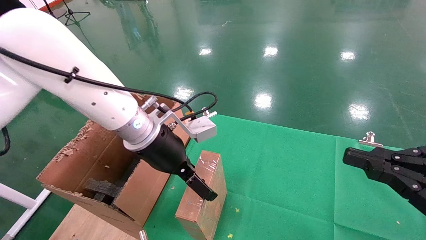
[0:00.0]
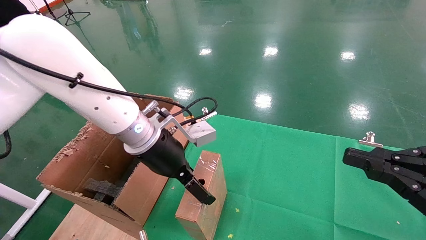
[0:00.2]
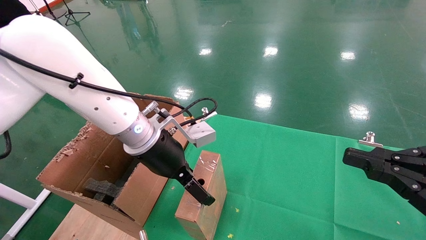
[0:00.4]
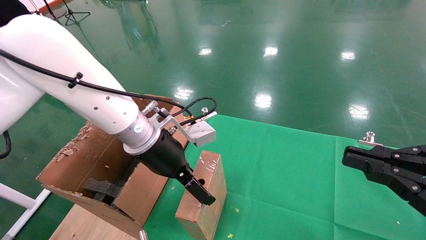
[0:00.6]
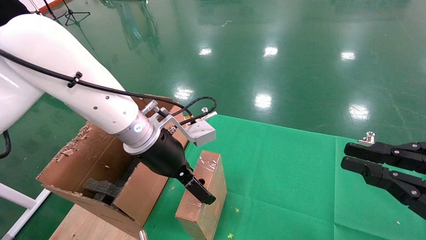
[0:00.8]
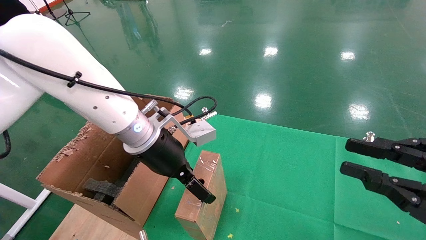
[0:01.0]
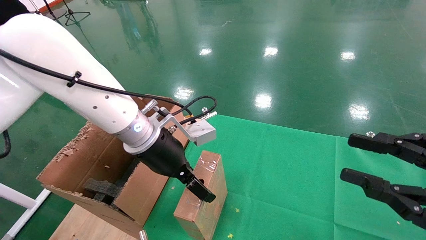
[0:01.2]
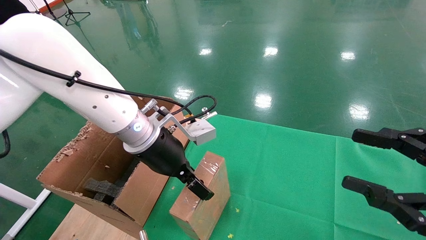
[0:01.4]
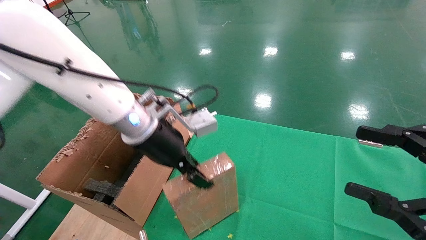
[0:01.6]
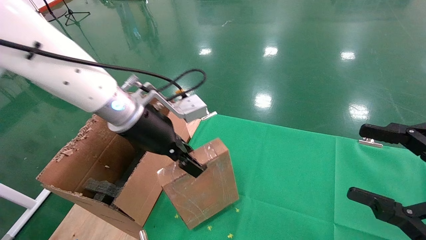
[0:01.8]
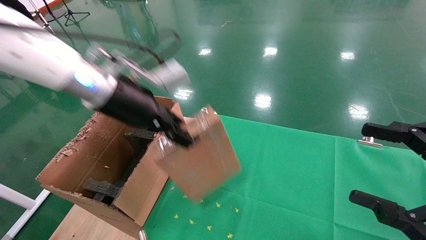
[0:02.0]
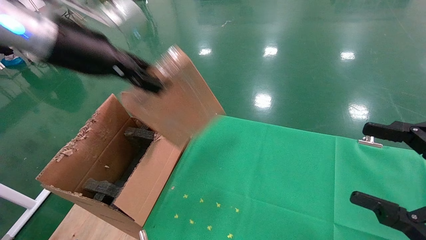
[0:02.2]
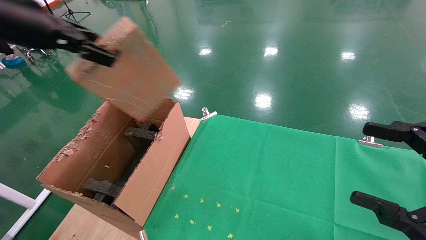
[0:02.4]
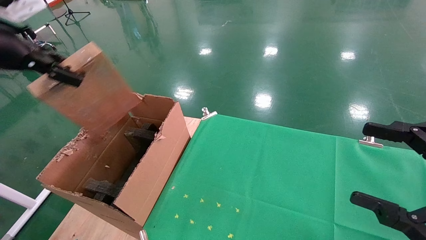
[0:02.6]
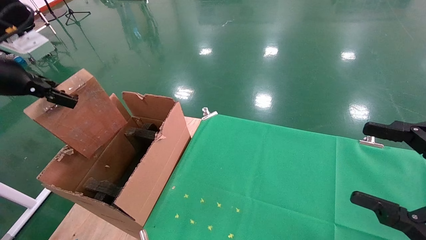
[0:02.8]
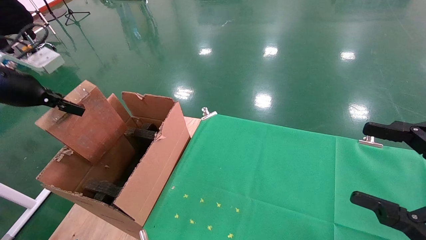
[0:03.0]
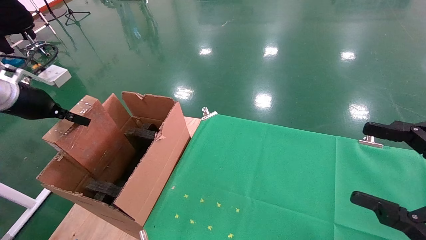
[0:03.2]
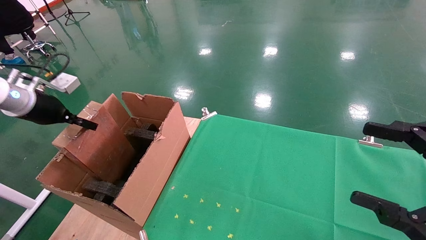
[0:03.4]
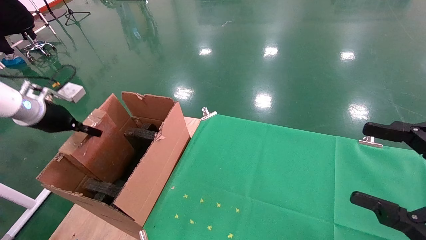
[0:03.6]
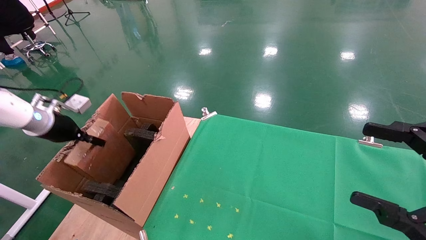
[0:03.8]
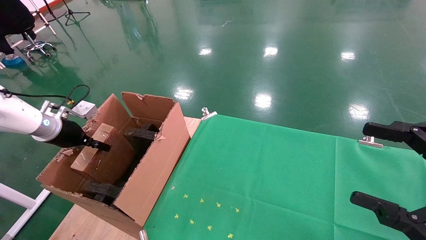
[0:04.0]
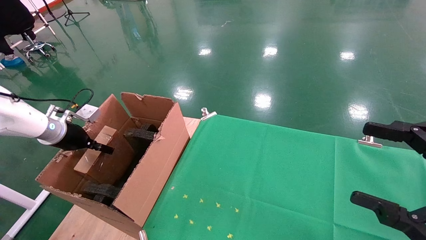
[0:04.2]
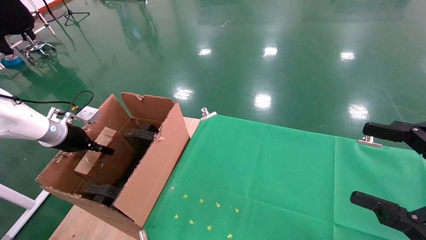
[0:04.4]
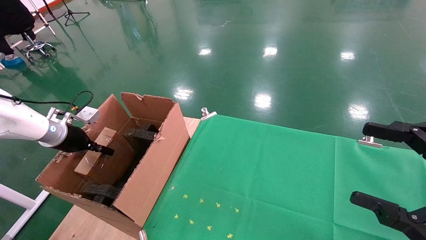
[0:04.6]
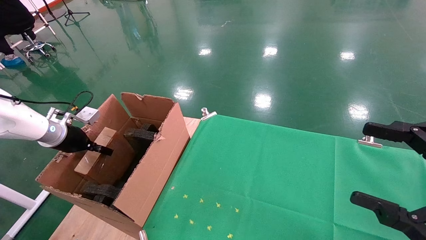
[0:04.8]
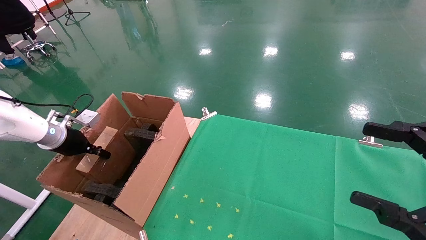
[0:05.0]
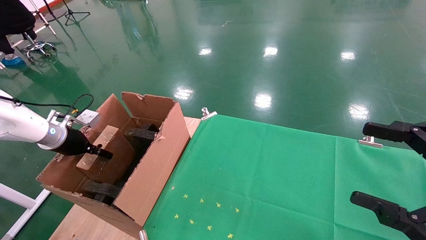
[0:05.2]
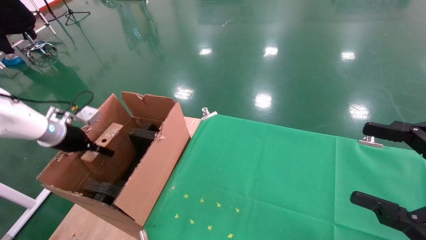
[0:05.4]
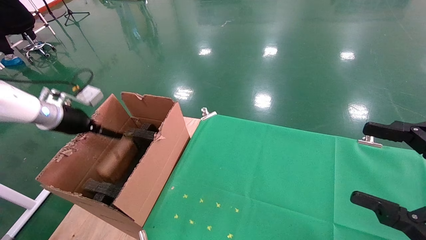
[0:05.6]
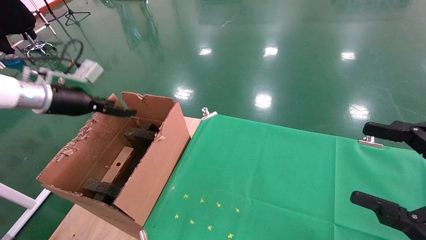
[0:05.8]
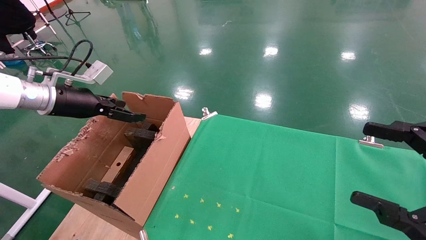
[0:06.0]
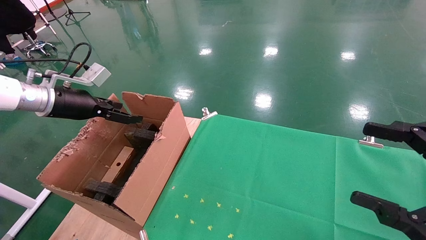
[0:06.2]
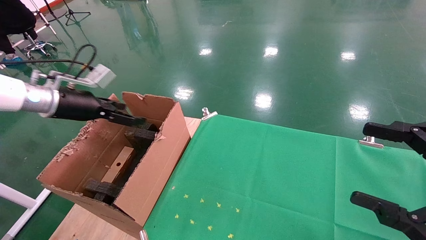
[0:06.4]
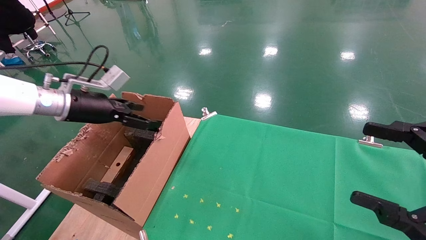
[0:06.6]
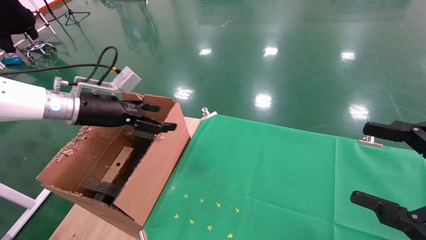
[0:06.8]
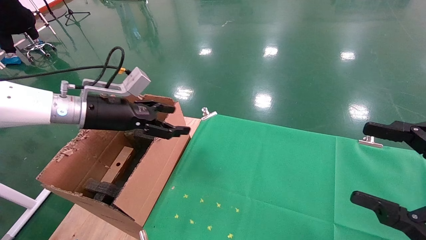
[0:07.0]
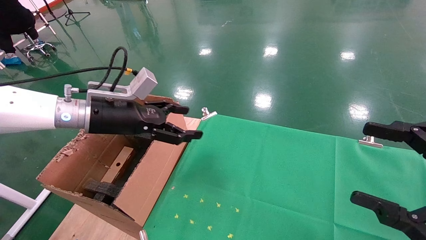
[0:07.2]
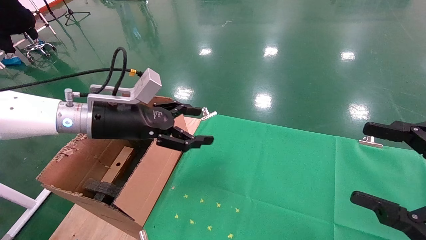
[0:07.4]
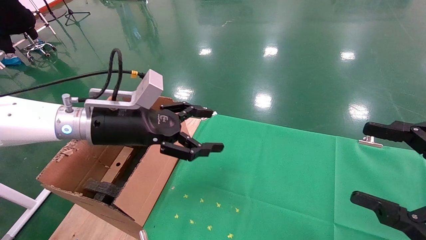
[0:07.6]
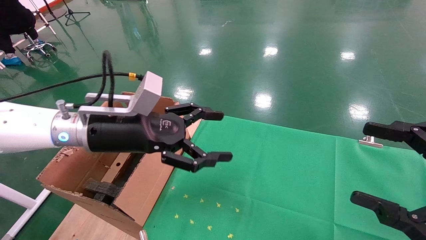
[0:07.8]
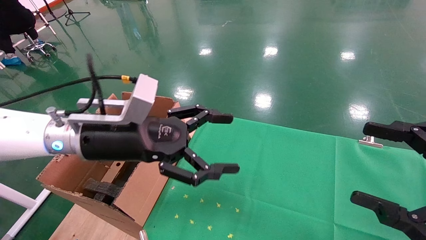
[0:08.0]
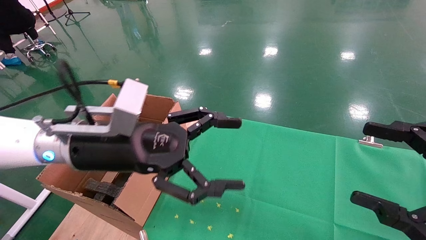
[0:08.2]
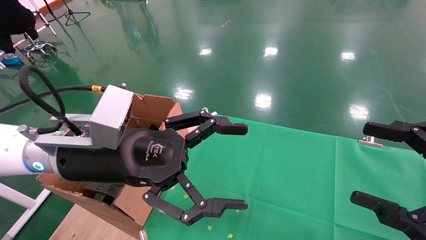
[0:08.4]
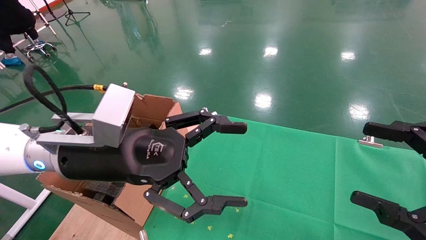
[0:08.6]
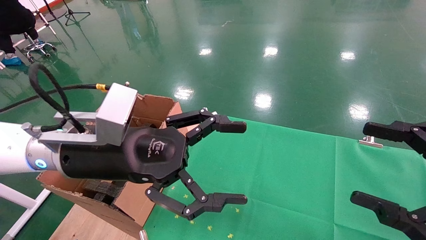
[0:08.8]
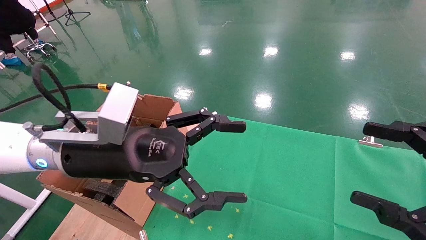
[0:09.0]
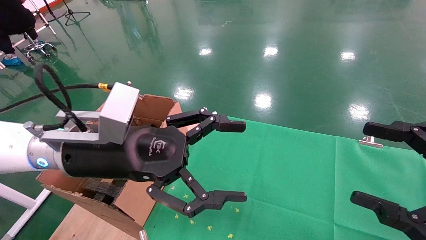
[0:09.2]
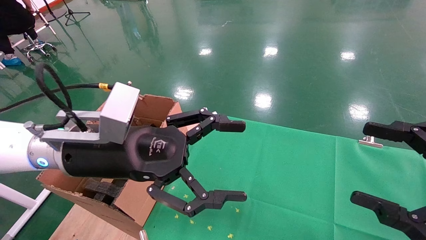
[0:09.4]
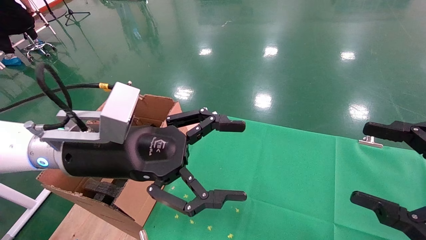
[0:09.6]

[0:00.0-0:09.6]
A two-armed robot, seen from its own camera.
Task of the whole recording: using a robotic arm to pick up a cardboard box and palace it the carton.
Step, 1.8 to 5.4 s: Place the mouse and the power cord paper box into the container.
0.0 to 1.6 s: The right gripper opens. The left gripper closes up.
1.6 to 3.2 s: The left gripper moves to the left, some 30 cm.
3.2 to 4.8 s: The left gripper moves downward and forward, roughly 15 cm.
4.8 to 6.4 s: The left gripper goes some 15 cm upward and to the right, and opens up.
6.4 to 8.0 s: The left gripper travels to the right and backward by approximately 20 cm.
8.0 to 9.6 s: The grippers stay close to where they were, moving slightly.

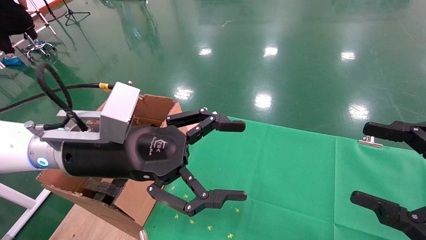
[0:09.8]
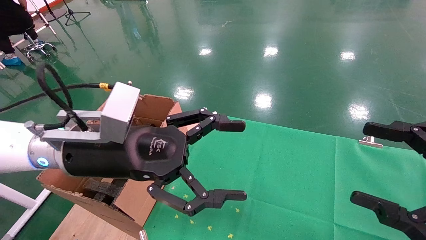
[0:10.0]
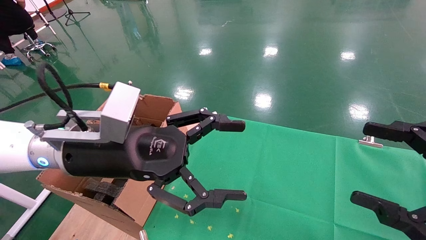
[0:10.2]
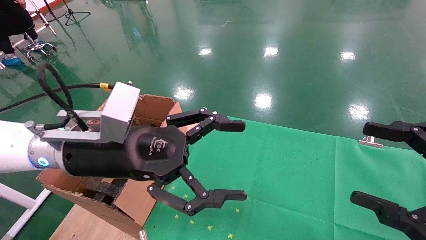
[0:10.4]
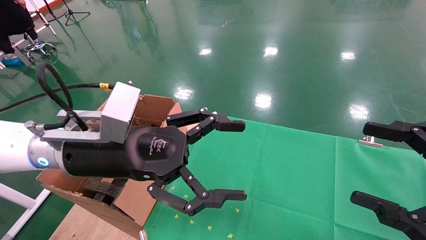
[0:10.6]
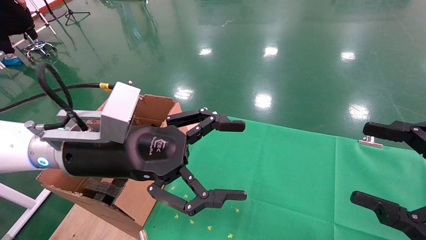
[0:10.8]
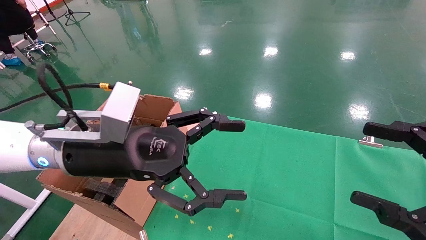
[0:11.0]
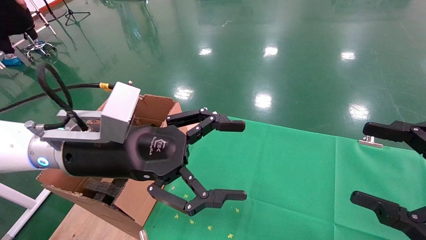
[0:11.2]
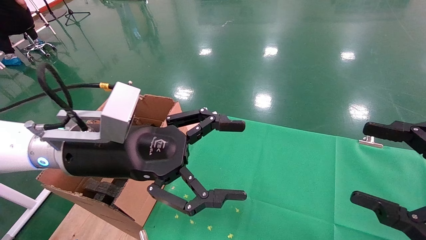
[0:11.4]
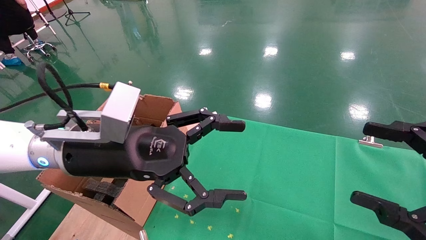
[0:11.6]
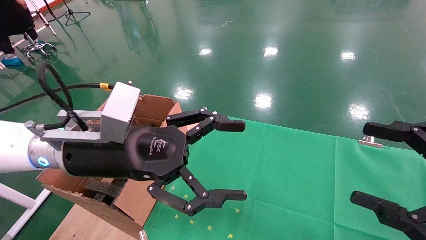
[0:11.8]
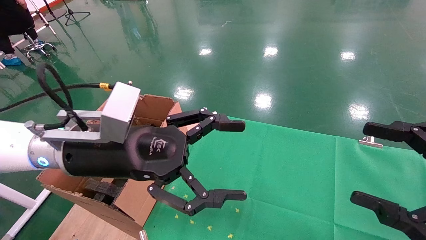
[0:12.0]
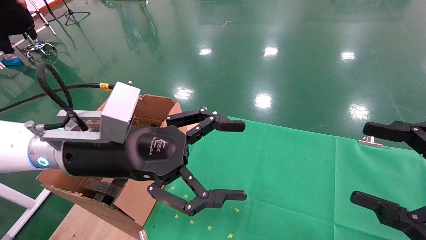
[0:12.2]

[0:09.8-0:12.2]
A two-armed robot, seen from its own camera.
Task of the whole recording: using a robotic arm to pick up a cardboard box and palace it the carton.
9.8 to 12.2 s: Both grippers stay about where they are.

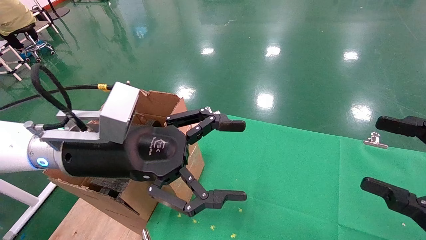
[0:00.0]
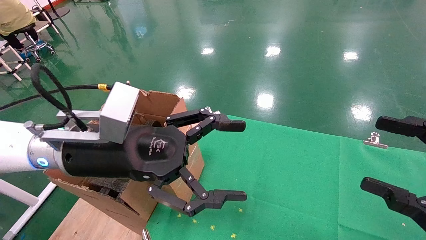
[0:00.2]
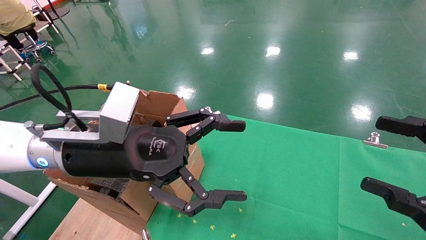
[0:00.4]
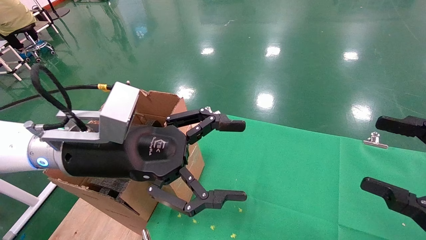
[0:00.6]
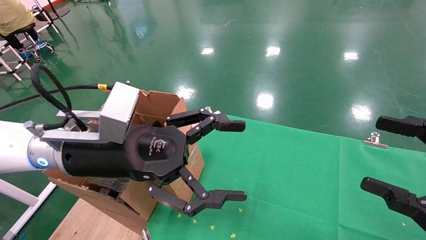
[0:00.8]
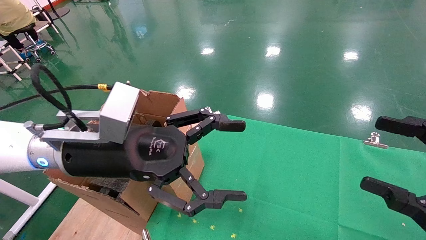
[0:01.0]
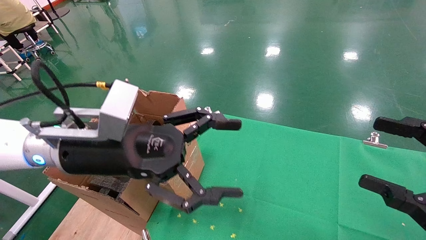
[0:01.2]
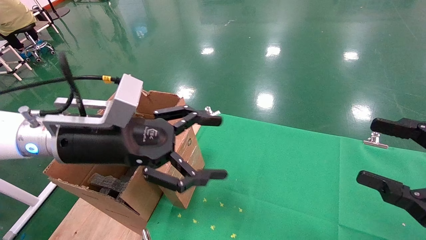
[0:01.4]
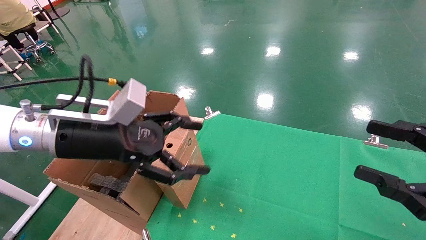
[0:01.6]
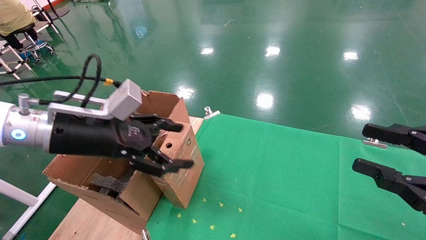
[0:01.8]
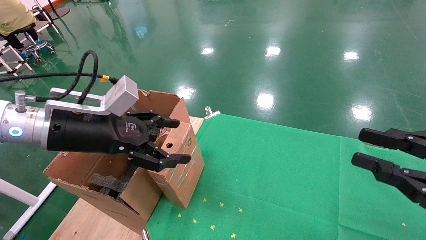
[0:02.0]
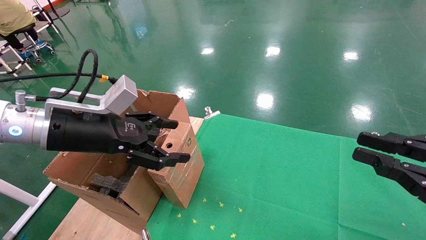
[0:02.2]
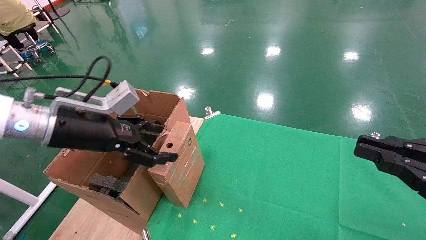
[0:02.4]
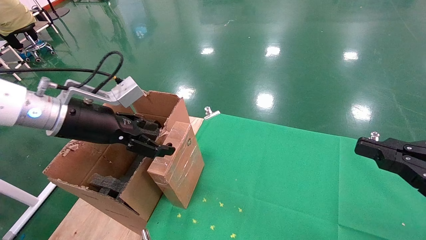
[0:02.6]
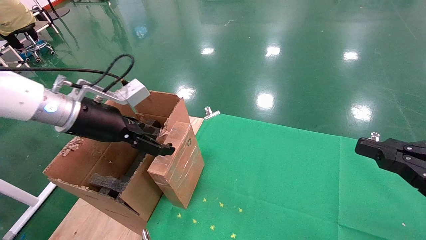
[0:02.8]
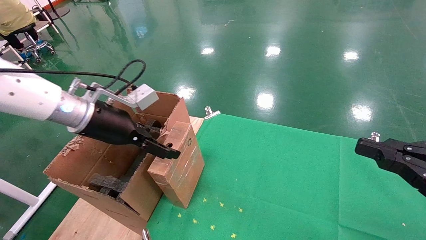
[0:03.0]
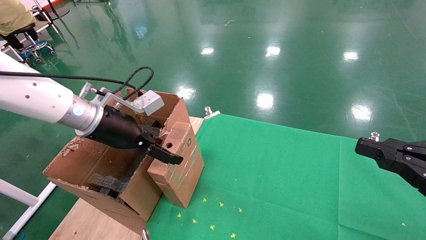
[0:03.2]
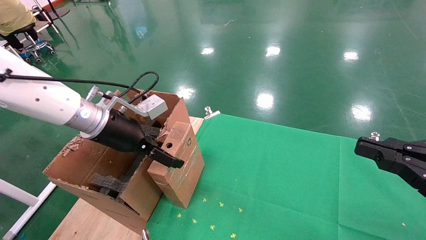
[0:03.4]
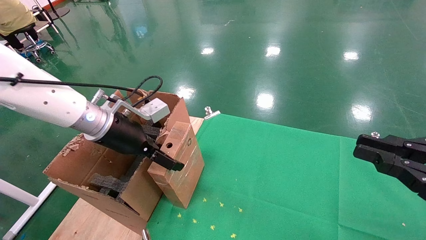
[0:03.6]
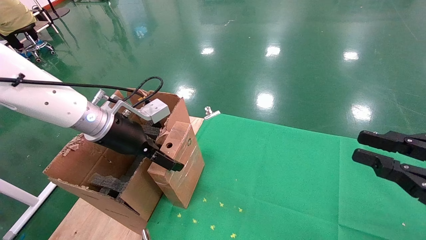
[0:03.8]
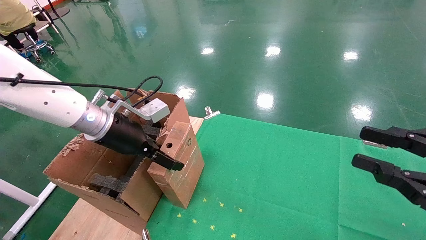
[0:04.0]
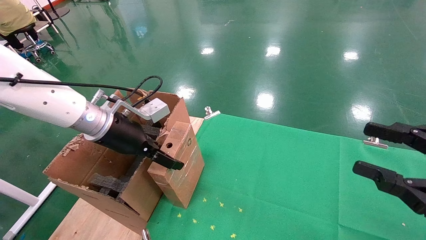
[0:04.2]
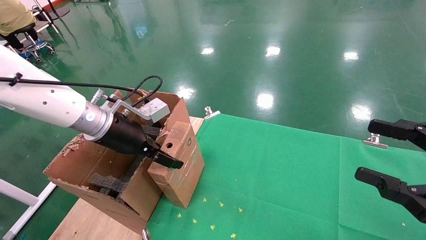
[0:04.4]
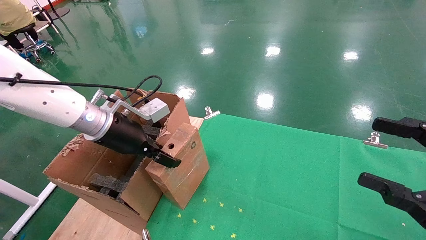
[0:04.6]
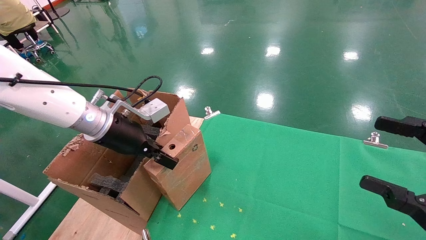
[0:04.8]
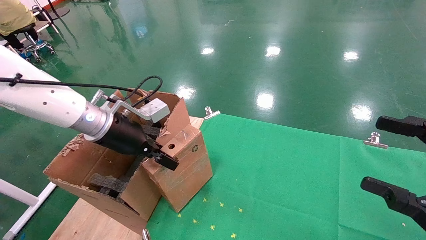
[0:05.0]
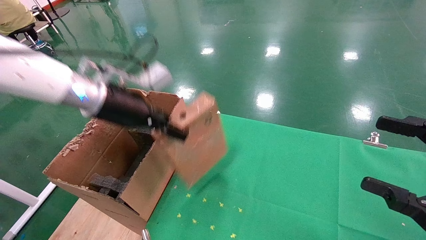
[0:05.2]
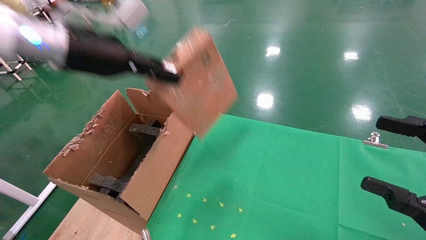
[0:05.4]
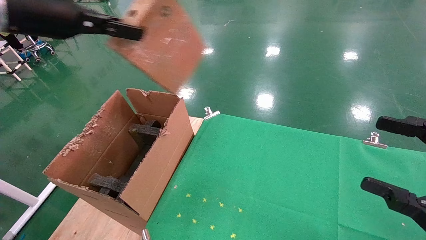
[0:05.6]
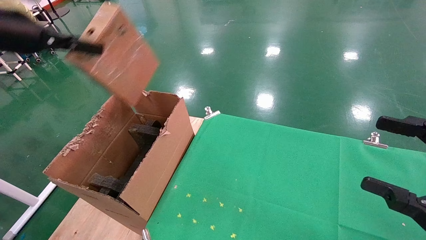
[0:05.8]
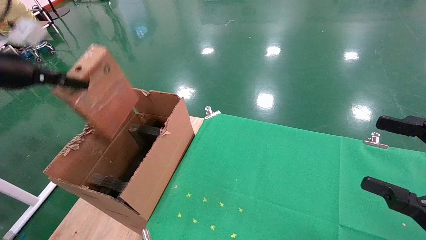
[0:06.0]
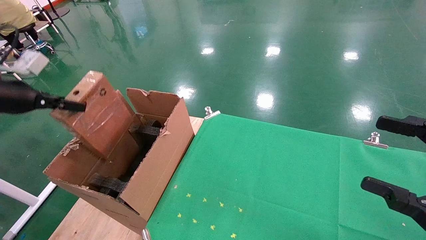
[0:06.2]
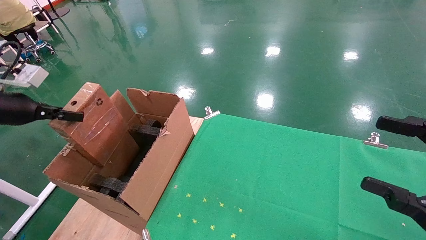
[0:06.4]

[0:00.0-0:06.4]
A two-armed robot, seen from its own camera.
Task of the whole recording: using a robotic arm to pick up a cardboard box and palace it the carton.
Step, 1.2 to 4.8 s: Pick up the mouse and the power cord paper box.
0.0 to 1.6 s: The left gripper shifts by about 5 cm.
1.6 to 3.2 s: The left gripper moves forward, approximately 10 cm, while the right gripper closes.
3.2 to 4.8 s: The left gripper closes up. The right gripper opens.
4.8 to 6.4 s: The left gripper moves to the left, about 25 cm.
